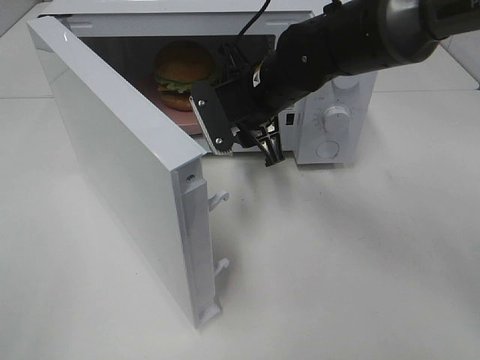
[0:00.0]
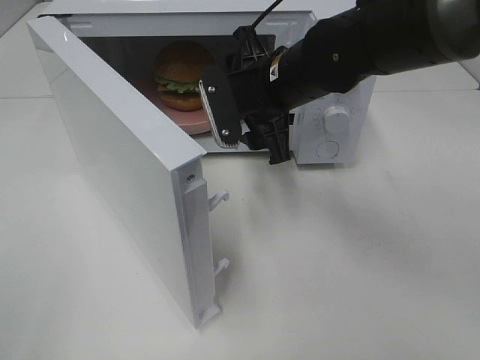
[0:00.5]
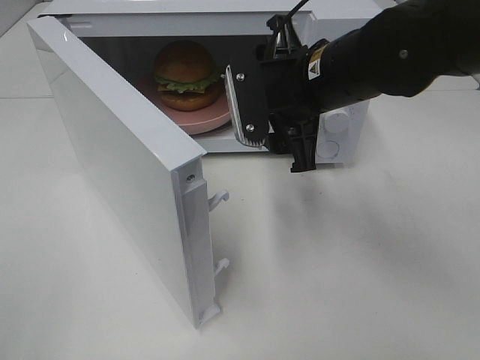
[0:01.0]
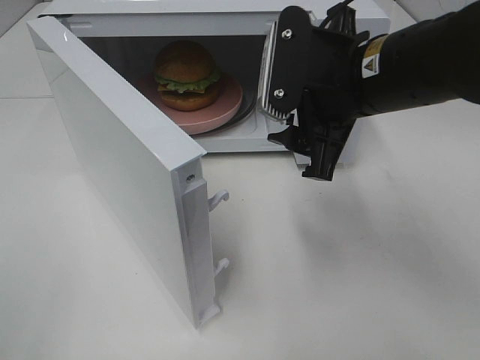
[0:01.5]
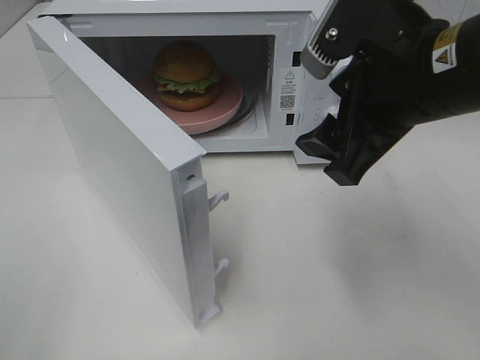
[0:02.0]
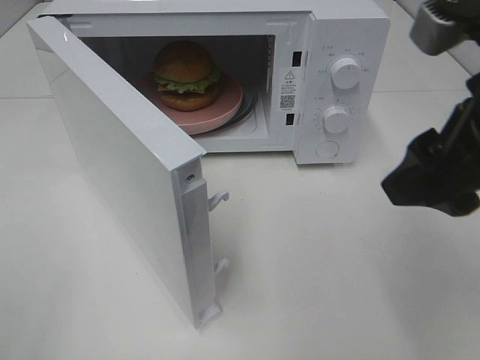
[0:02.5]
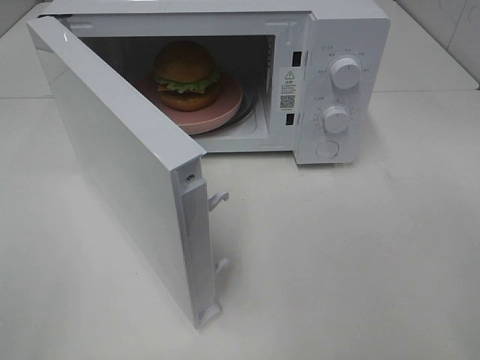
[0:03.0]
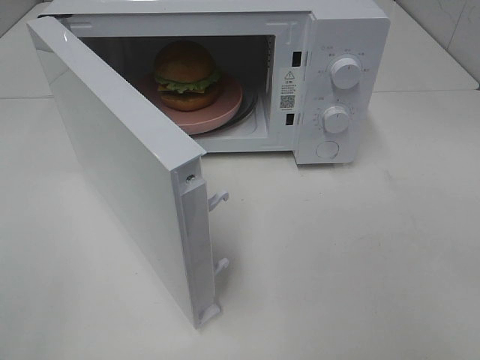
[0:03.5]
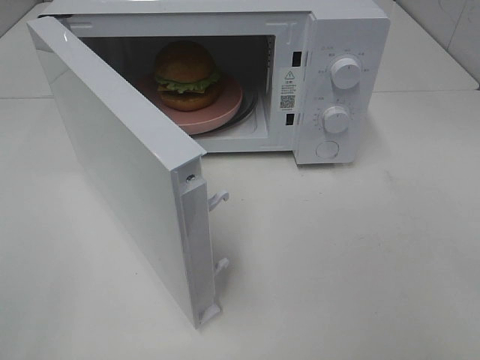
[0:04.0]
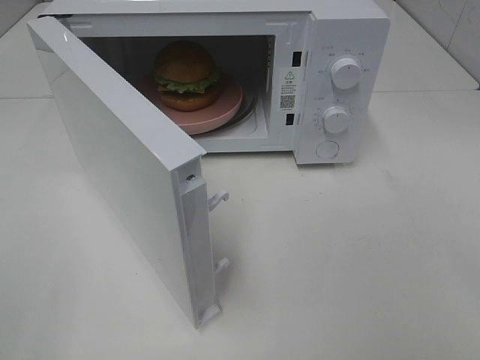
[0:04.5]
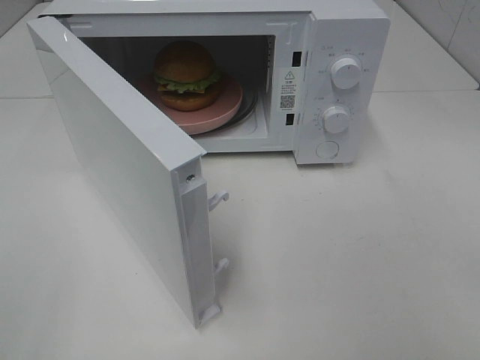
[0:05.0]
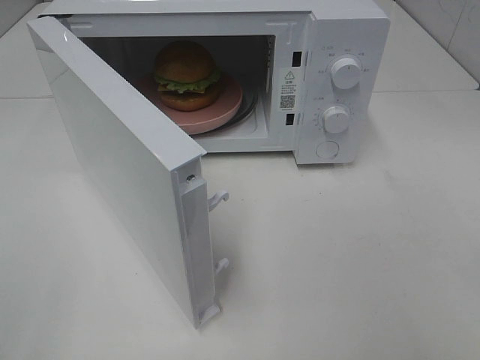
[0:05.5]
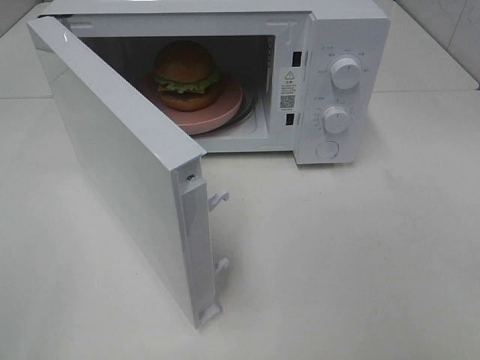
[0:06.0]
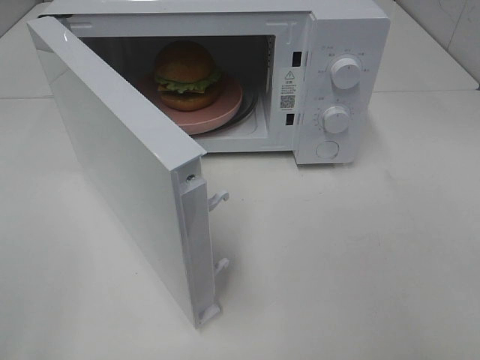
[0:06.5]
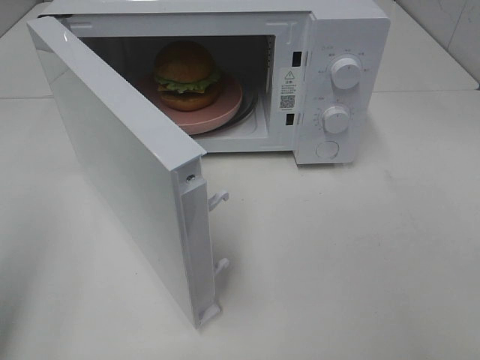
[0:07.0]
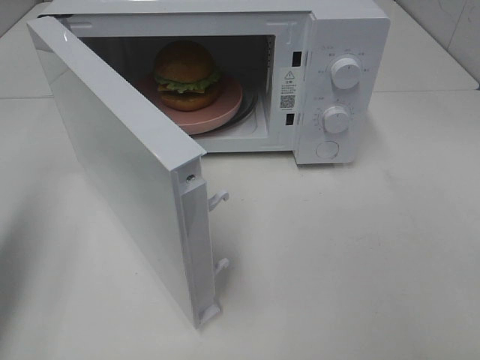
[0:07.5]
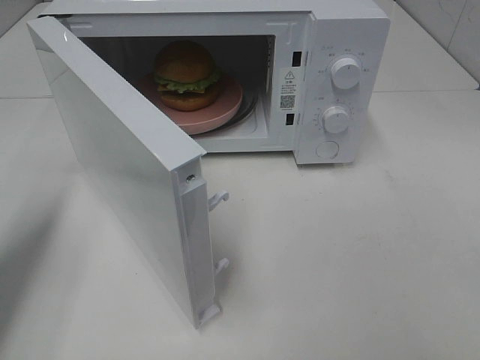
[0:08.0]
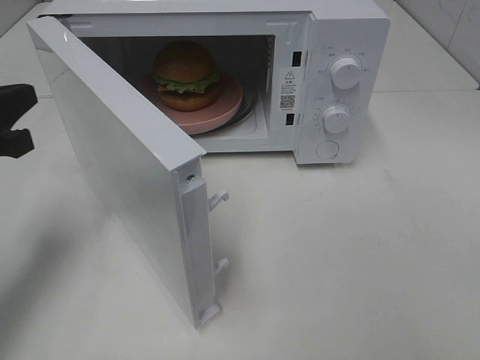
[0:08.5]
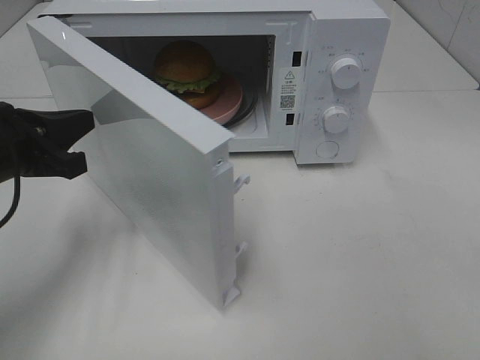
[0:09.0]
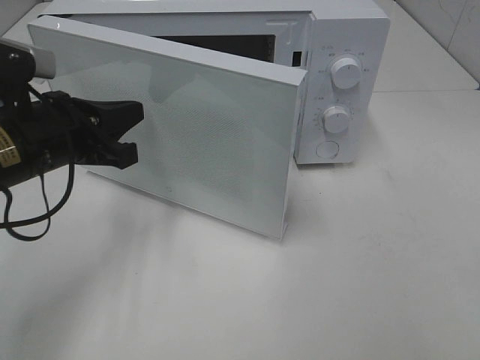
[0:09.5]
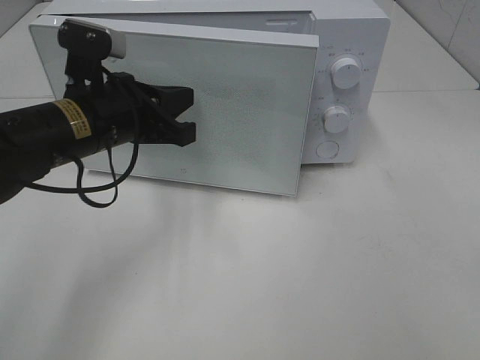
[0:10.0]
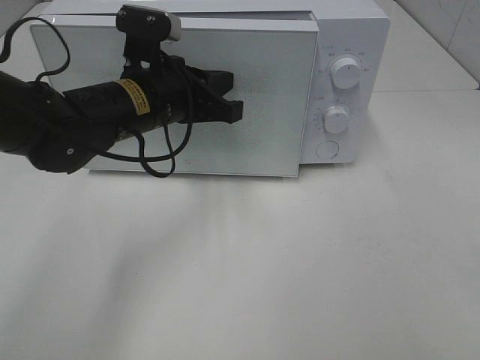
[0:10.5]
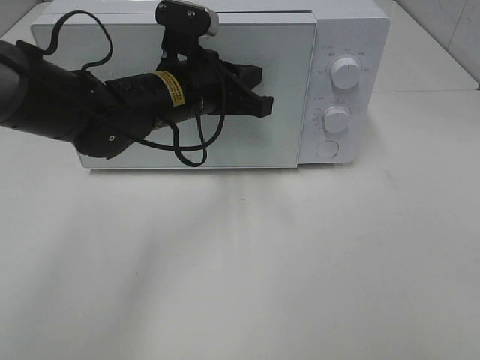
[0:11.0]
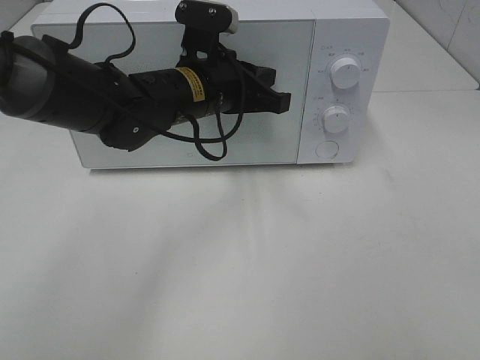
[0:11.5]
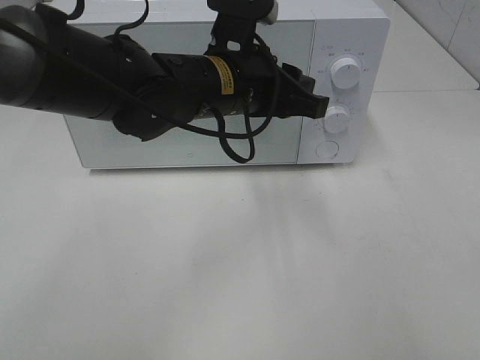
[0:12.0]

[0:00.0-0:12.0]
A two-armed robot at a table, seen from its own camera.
Task of the whole recording: Heat the burger.
Step, 0:00.0 to 0:11.5: Left hand: close the microwave door.
0:00.0 to 0:02.0: The right gripper travels backward, to the right and upward by roughly 20 cm.
0:02.0 to 0:04.0: The right gripper heads backward and to the right, covering about 25 cm.
0:06.0 to 0:08.0: The left gripper moves forward, roughly 20 cm, and closes its fingers.
0:08.0 to 0:10.0: The left gripper travels to the right and forward by roughly 20 cm.
0:10.0 to 0:12.0: The left gripper heads to the right, covering roughly 15 cm, and opens up.

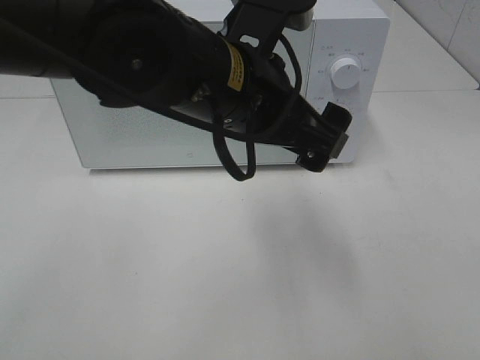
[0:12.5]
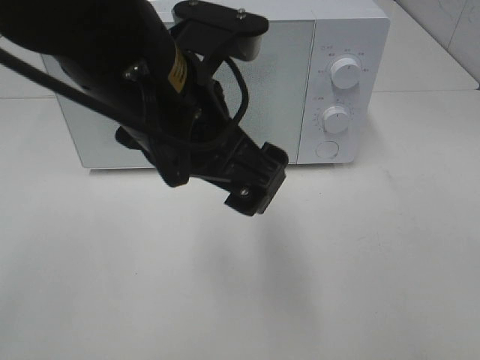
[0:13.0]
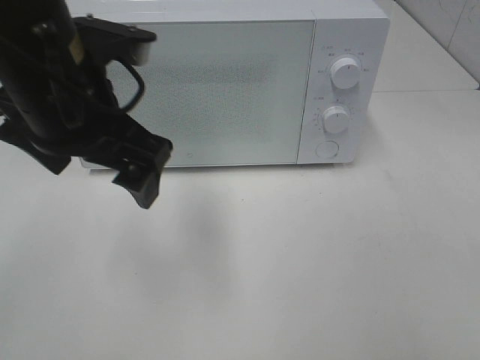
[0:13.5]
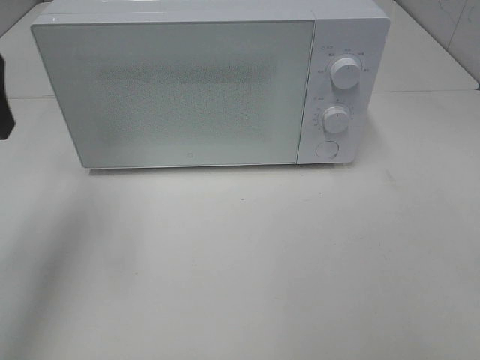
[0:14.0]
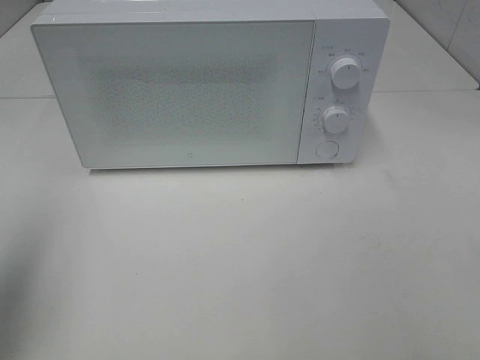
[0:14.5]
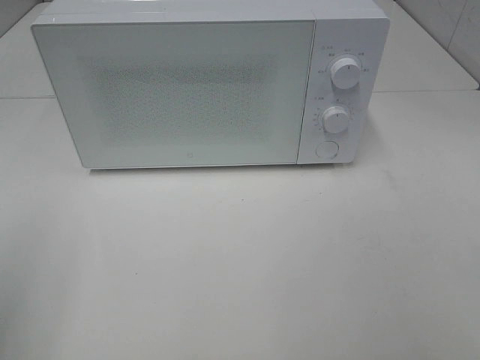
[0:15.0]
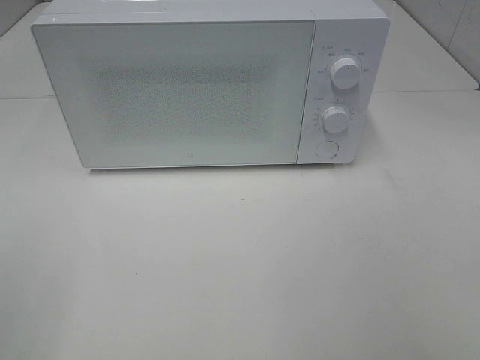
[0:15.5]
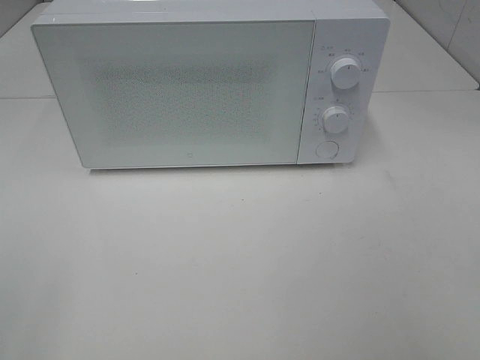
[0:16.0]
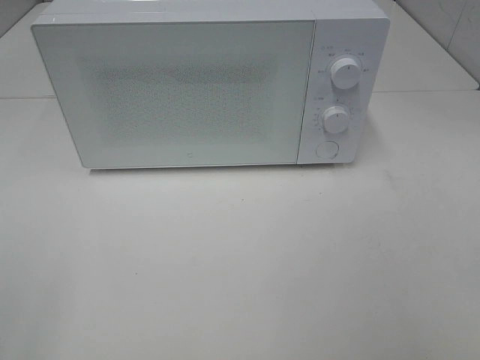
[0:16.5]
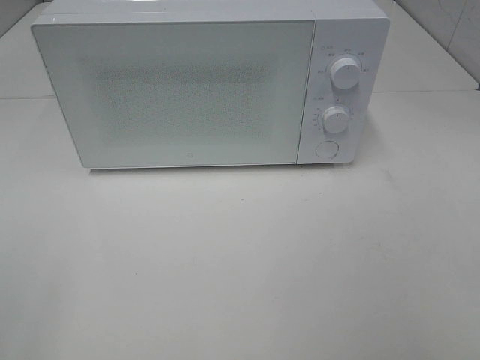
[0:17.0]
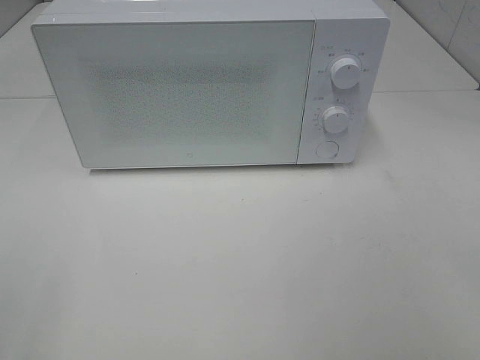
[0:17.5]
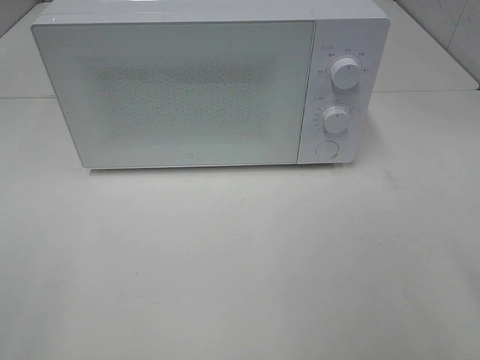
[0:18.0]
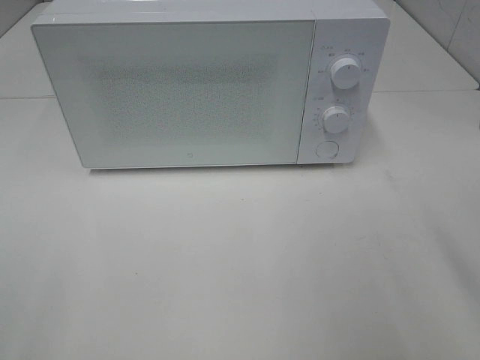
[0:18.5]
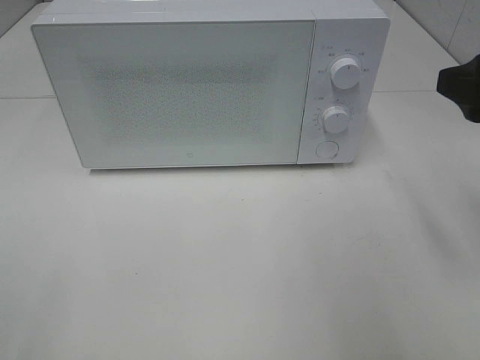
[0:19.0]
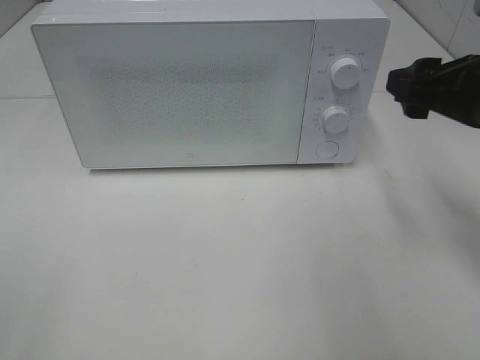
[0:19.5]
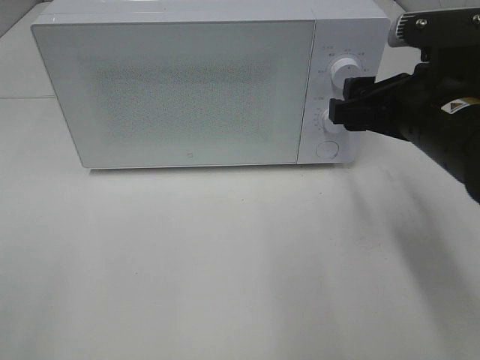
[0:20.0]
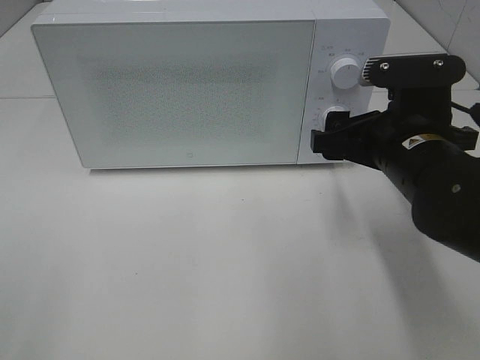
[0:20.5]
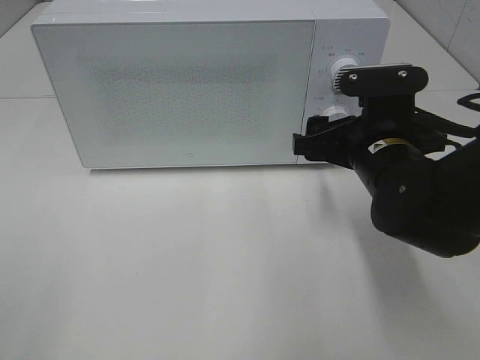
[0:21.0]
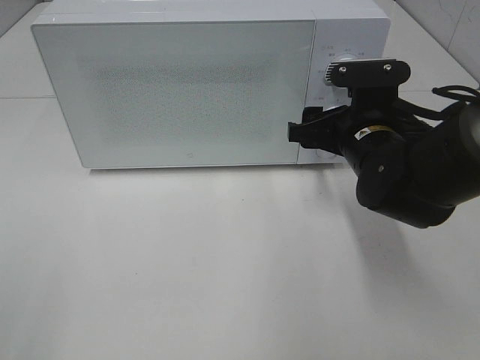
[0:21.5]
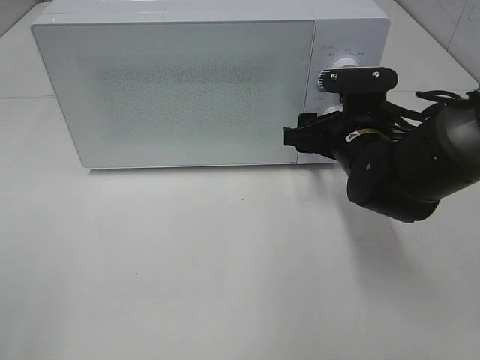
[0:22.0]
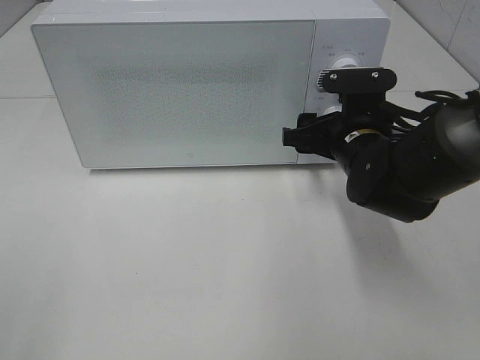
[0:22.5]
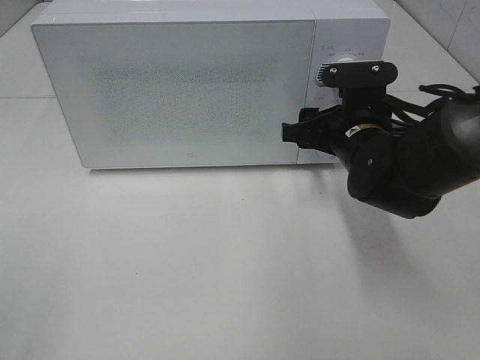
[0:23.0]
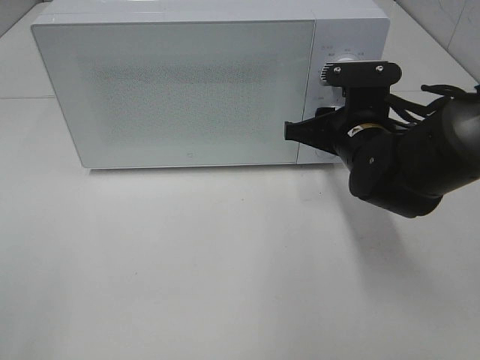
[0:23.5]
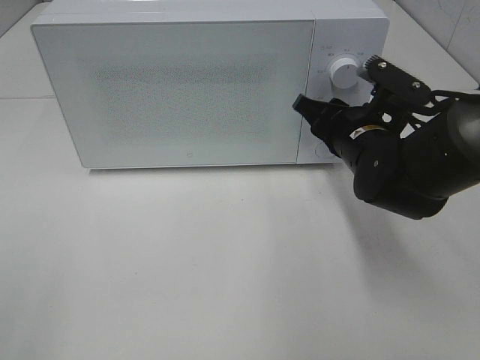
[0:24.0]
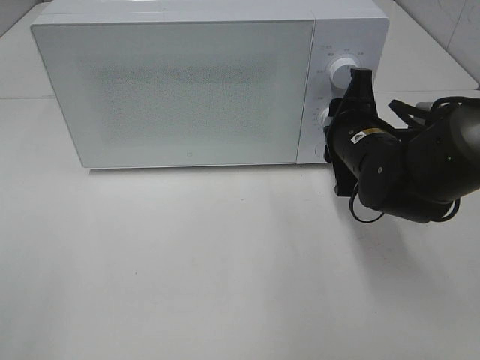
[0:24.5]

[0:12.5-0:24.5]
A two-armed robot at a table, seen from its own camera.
Task of the whole recording: Heat the burger.
0:12.5 to 0:14.5: The left gripper heads to the left, covering approximately 30 cm.
0:14.5 to 0:16.5: The left gripper moves backward, approximately 15 cm.
0:18.5 to 0:20.5: The right gripper heads downward, forward and to the left, covering roughly 20 cm.
0:20.5 to 0:22.5: The right gripper heads forward, covering approximately 5 cm.

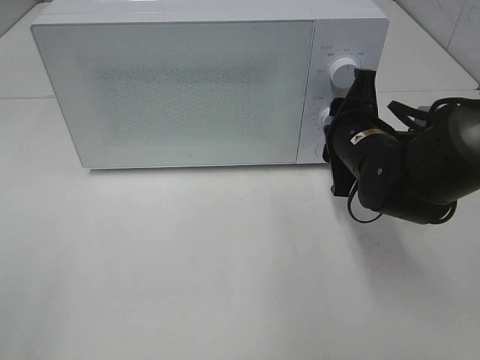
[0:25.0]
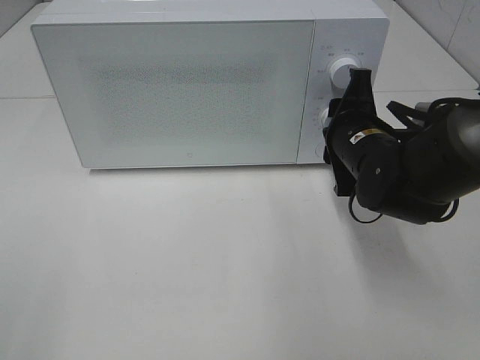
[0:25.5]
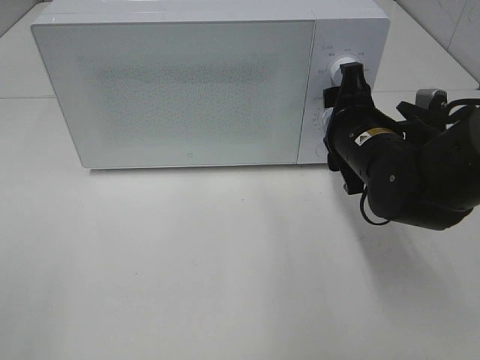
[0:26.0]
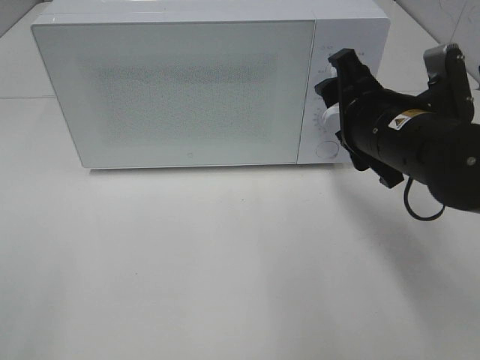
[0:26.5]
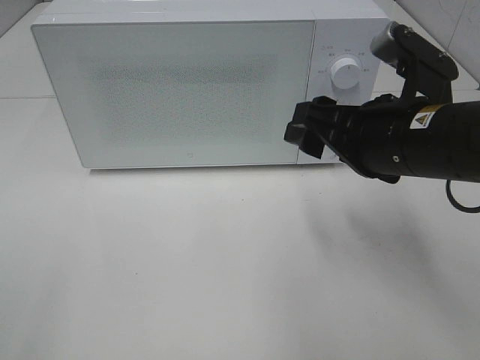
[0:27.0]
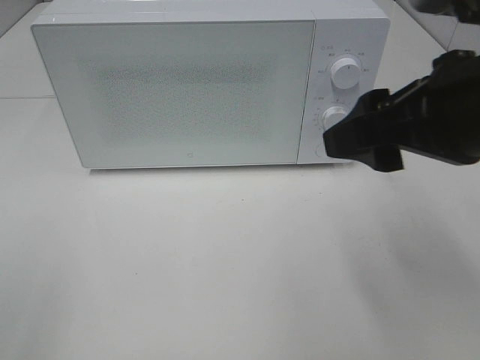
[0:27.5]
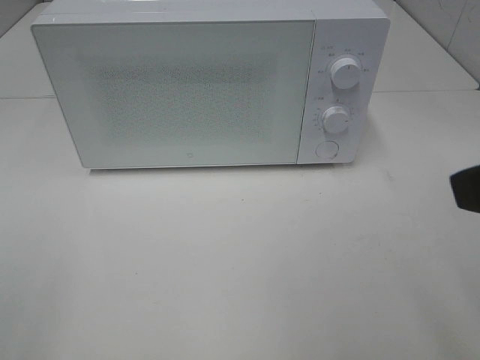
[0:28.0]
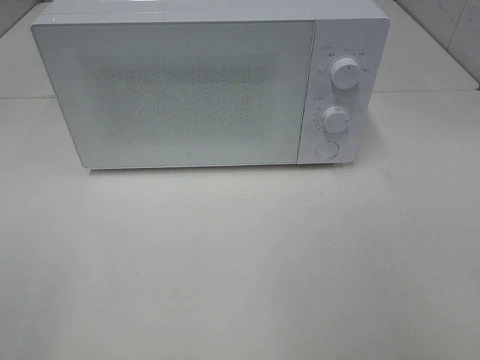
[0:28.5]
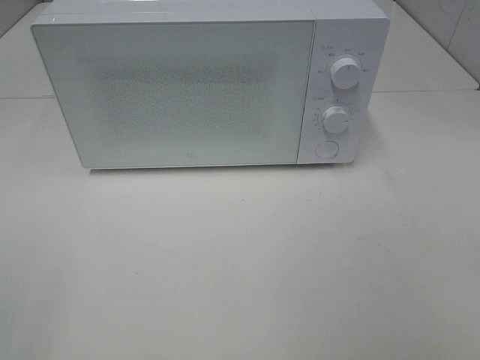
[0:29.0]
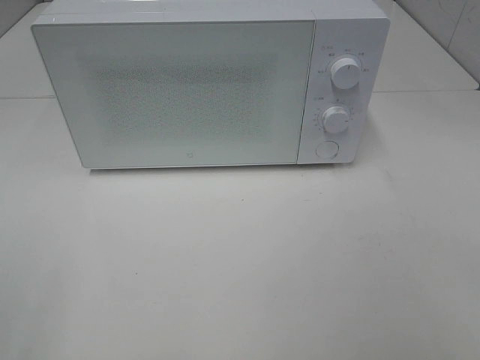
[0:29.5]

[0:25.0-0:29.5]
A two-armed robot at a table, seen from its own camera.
Task of the whole recording: Heat the burger.
0:25.0 to 0:27.0: The right gripper travels backward and upward by approximately 10 cm, and opens up.
0:27.0 to 0:29.5: The right gripper travels backward and to the right by roughly 25 cm.
